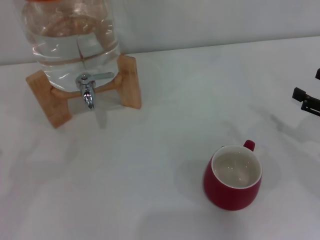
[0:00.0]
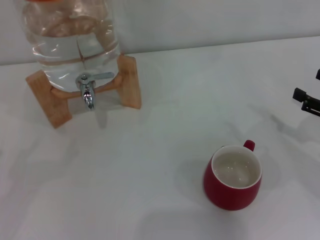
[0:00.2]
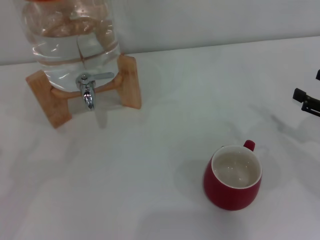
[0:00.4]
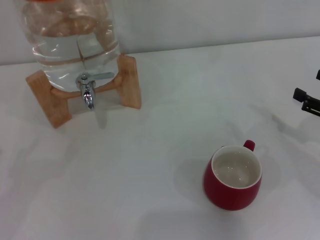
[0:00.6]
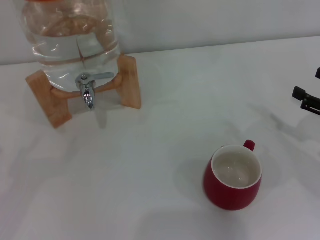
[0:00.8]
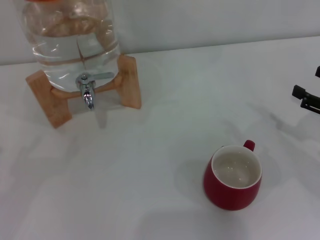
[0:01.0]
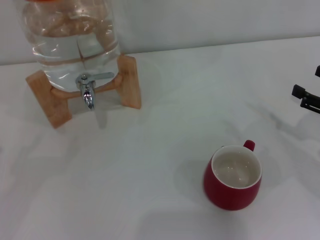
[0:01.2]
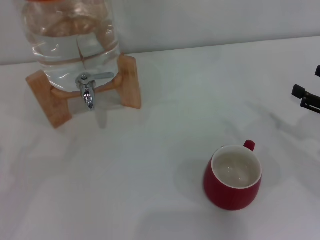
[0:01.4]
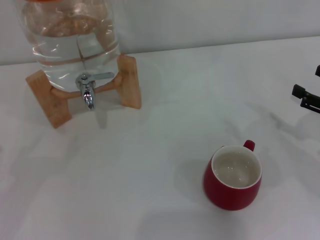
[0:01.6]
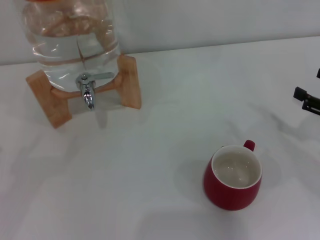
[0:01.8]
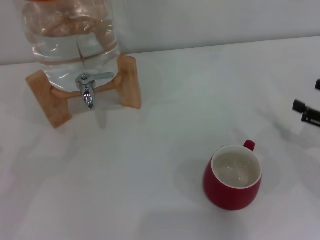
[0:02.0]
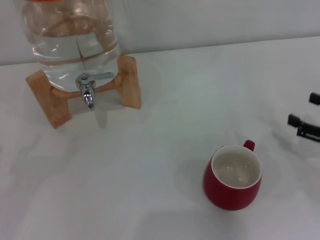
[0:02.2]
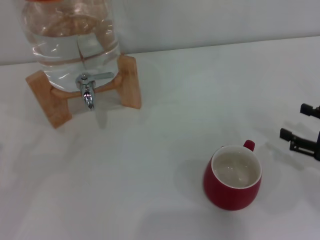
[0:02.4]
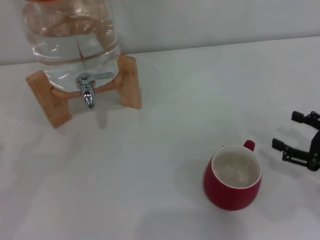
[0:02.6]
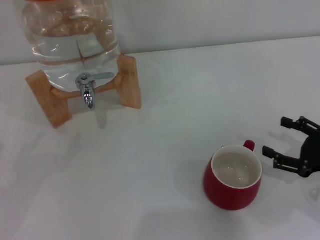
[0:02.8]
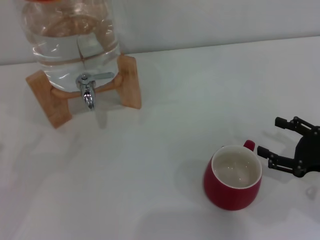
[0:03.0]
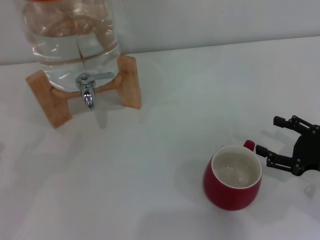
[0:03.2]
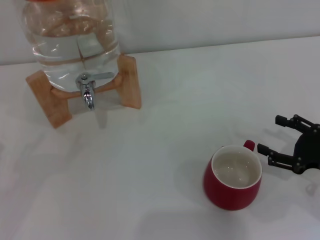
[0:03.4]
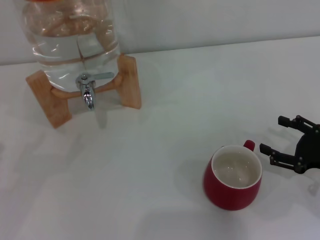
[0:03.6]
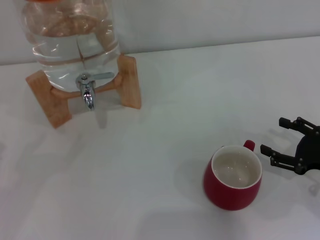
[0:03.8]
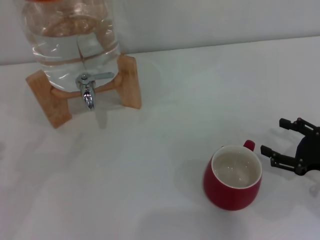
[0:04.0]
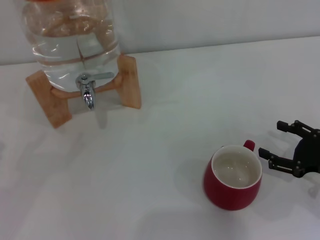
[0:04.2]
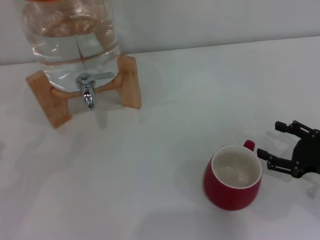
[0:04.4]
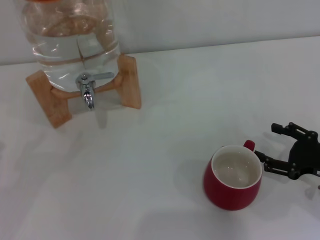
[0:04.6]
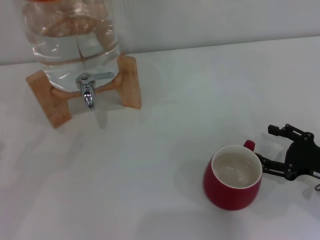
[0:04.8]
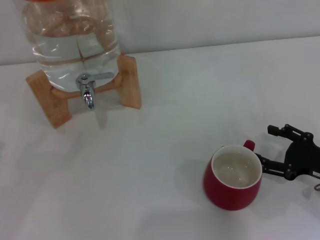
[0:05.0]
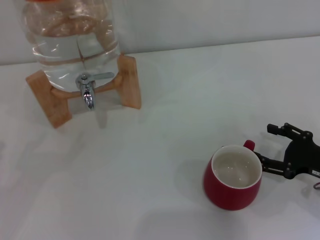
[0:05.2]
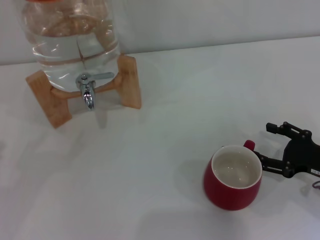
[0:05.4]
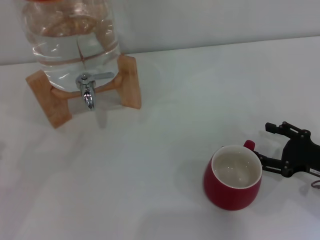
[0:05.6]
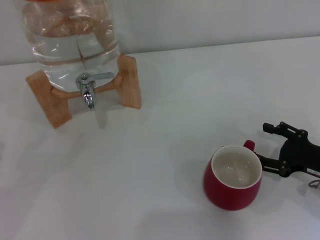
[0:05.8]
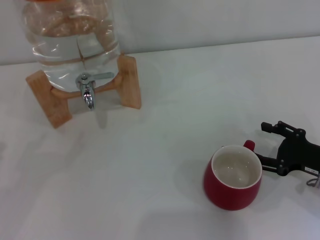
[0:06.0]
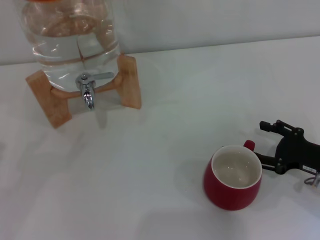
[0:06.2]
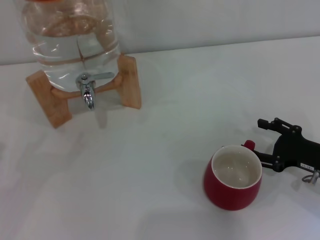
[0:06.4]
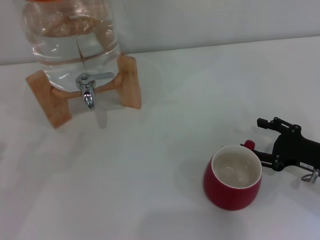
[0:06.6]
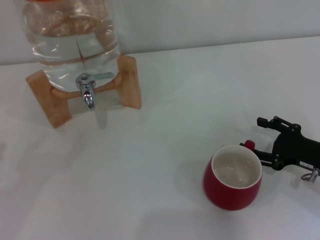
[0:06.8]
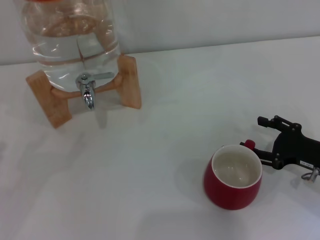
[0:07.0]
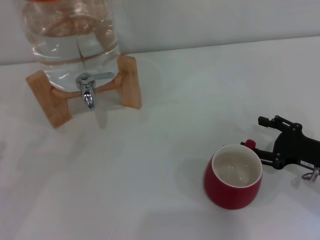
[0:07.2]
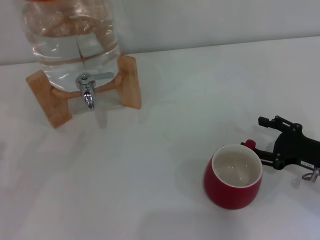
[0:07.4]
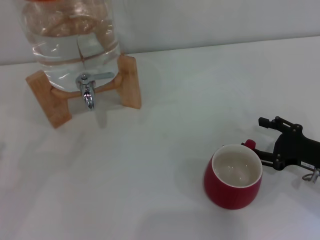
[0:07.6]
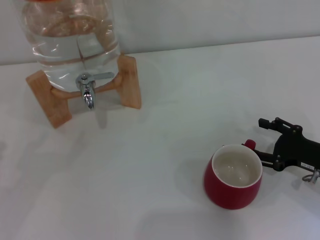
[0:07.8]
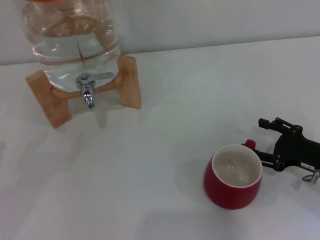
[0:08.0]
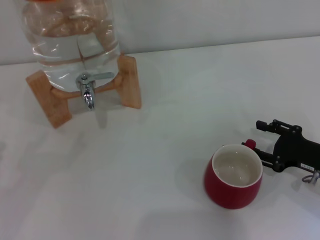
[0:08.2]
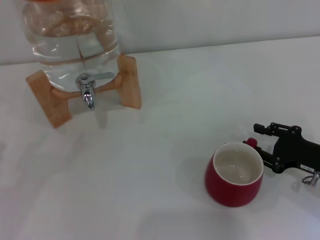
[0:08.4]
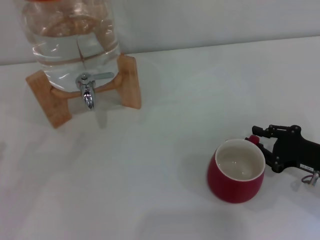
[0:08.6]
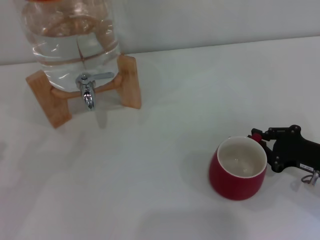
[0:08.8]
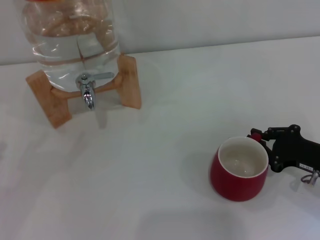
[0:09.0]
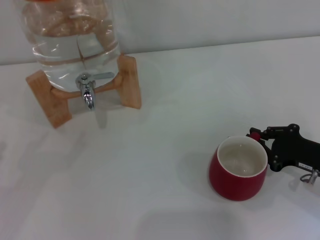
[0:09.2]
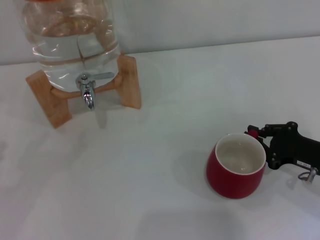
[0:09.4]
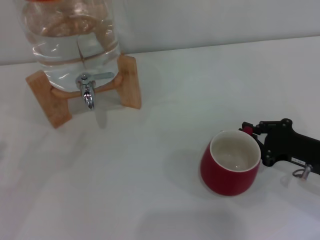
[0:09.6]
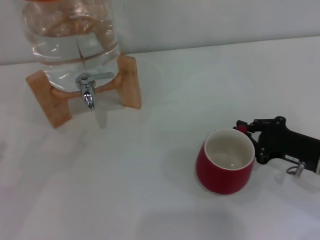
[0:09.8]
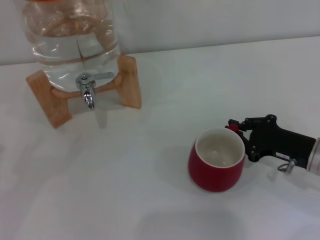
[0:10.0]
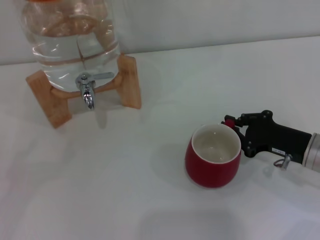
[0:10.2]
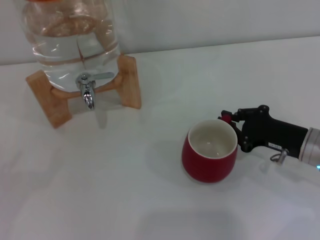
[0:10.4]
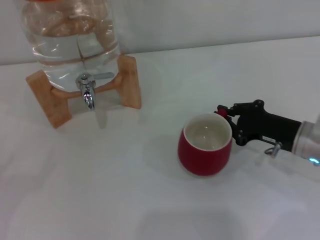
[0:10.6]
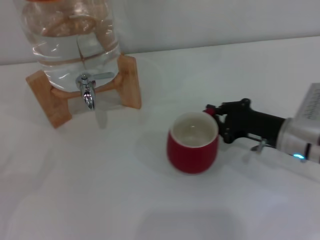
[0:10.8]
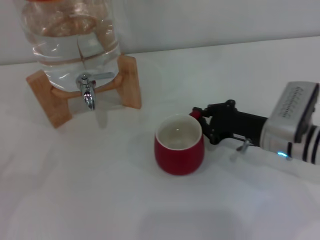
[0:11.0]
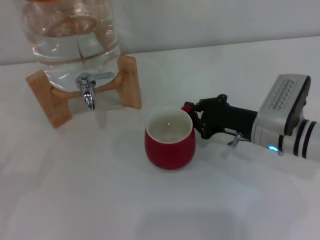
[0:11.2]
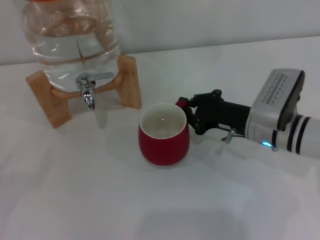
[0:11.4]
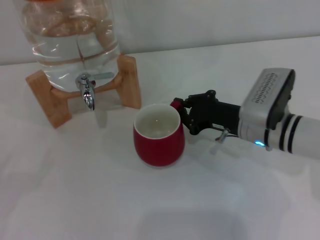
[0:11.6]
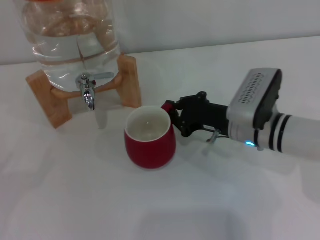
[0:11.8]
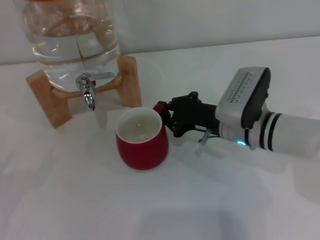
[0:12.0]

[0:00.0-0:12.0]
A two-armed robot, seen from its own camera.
Task of the whole recording: the right gripper pick up the red cup and place it horizontally under the faucet, the left gripper turn on the faucet to fill the cup, and then turn off the faucet.
0:00.0 to 0:01.6: The two grippers keep their place.
0:01.6 to 0:03.0: The right gripper shifts by approximately 5 cm.
0:03.0 to 0:04.4: Neither gripper changes place.
0:04.4 to 0:06.0: The grippers move only a little.
0:06.0 to 0:07.6: The two grippers keep their place.
0:07.6 to 0:09.0: The right gripper closes its fingers.
0:09.0 to 0:10.4: The right gripper ends up about 5 cm from where it was.
0:10.4 to 0:12.0: The right gripper travels to the left and forward by approximately 15 cm.

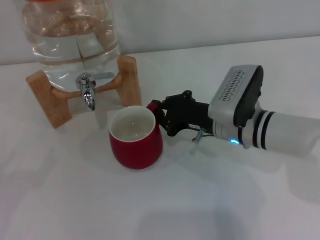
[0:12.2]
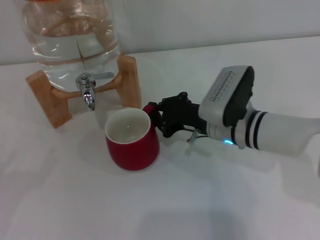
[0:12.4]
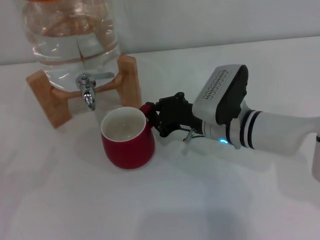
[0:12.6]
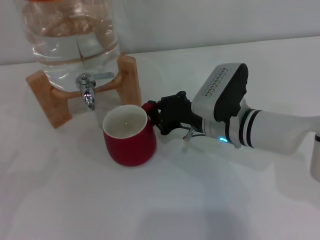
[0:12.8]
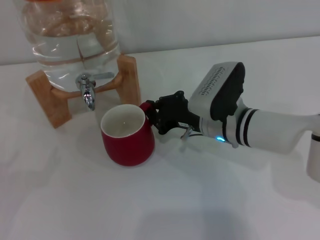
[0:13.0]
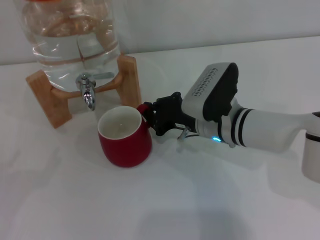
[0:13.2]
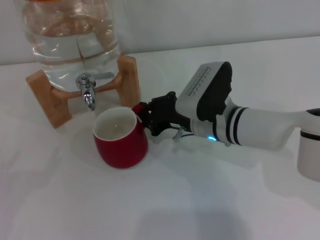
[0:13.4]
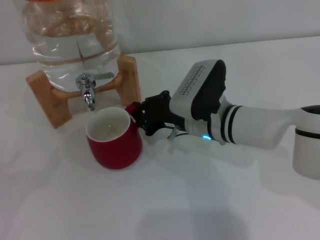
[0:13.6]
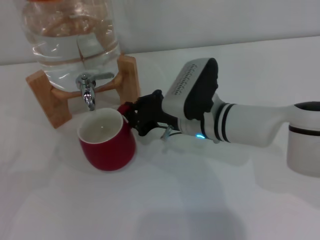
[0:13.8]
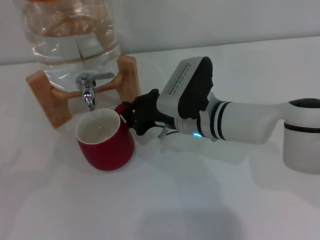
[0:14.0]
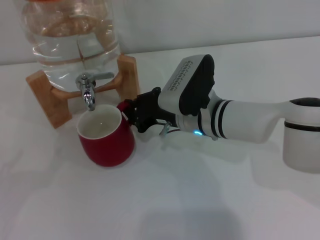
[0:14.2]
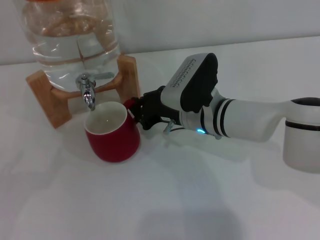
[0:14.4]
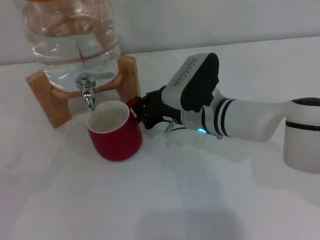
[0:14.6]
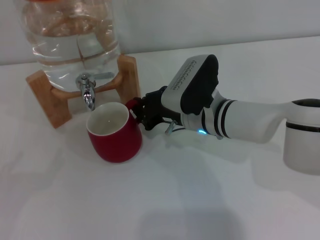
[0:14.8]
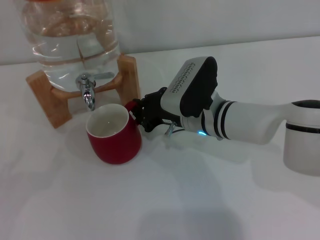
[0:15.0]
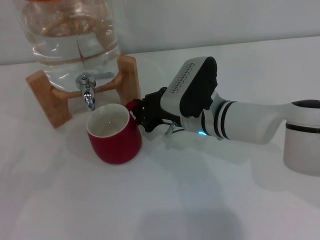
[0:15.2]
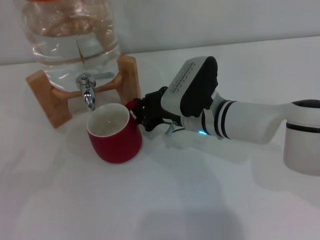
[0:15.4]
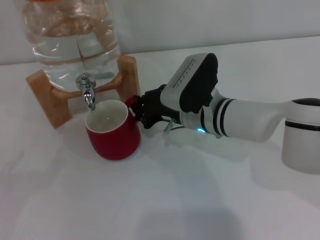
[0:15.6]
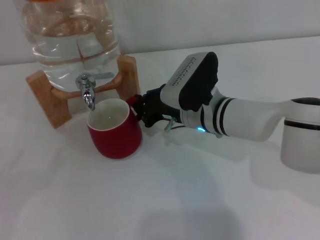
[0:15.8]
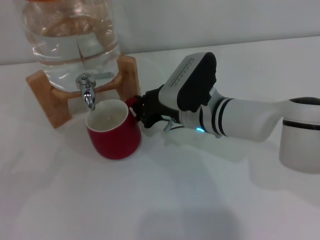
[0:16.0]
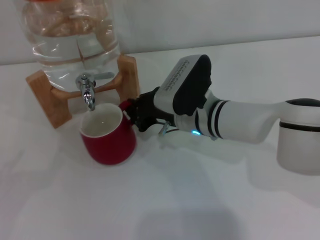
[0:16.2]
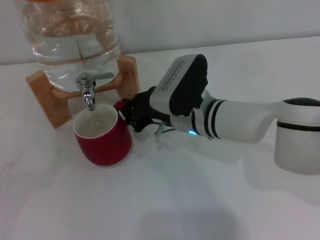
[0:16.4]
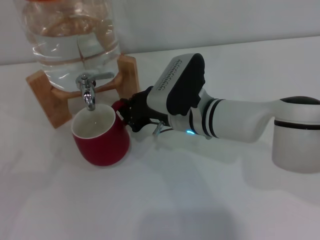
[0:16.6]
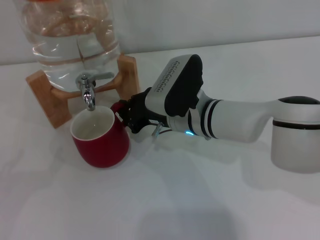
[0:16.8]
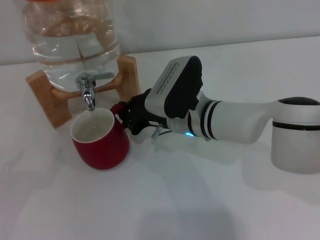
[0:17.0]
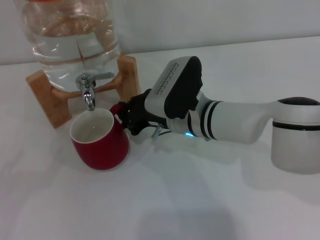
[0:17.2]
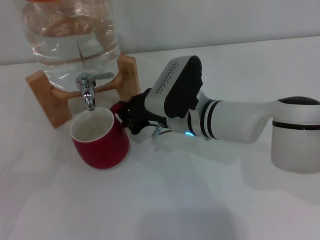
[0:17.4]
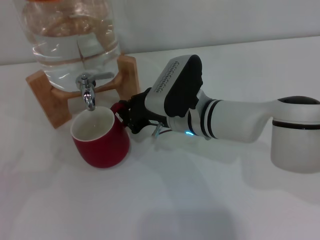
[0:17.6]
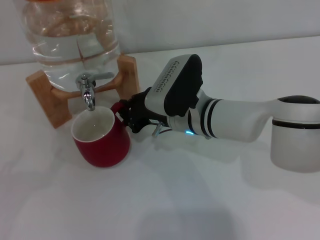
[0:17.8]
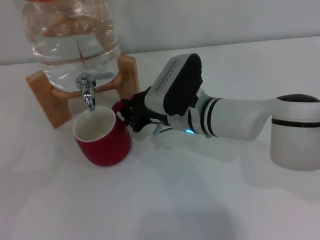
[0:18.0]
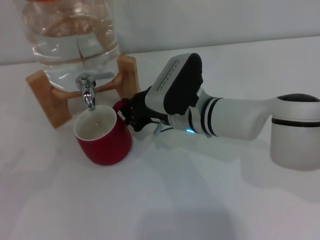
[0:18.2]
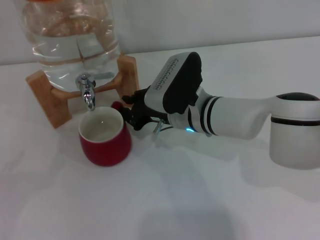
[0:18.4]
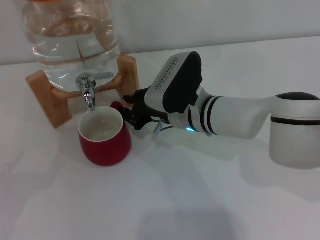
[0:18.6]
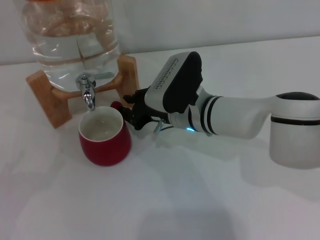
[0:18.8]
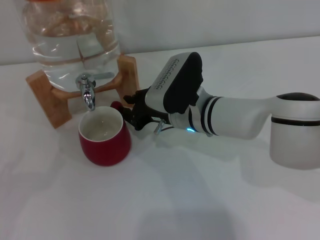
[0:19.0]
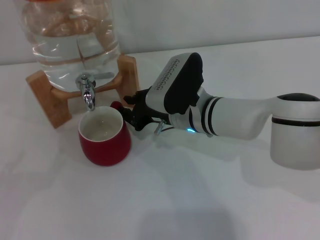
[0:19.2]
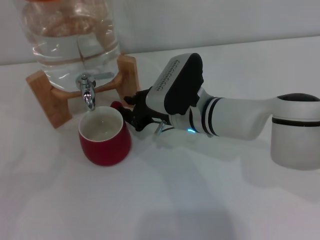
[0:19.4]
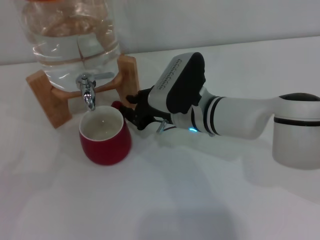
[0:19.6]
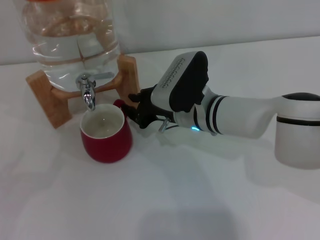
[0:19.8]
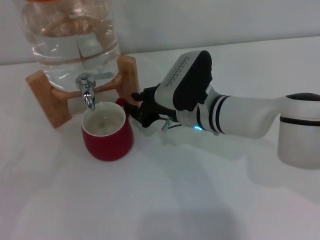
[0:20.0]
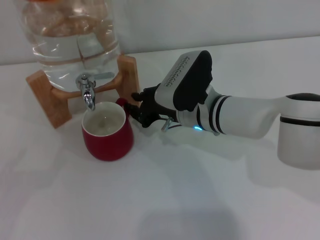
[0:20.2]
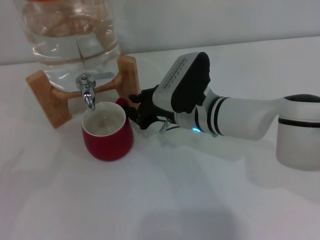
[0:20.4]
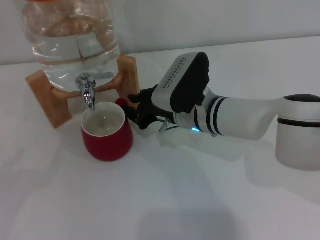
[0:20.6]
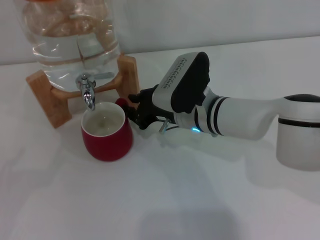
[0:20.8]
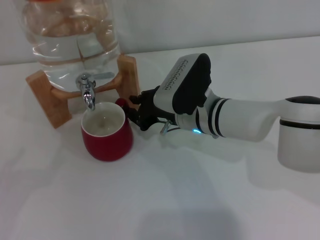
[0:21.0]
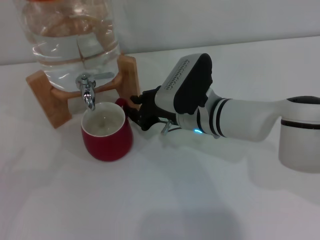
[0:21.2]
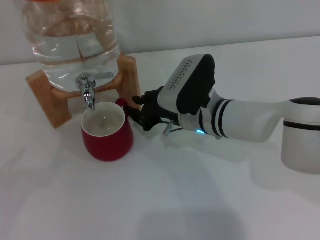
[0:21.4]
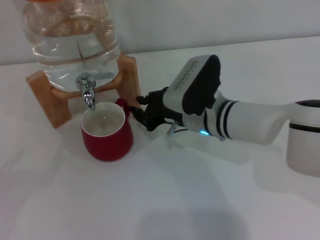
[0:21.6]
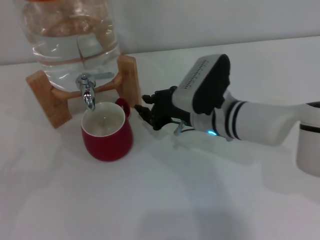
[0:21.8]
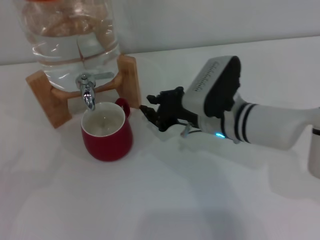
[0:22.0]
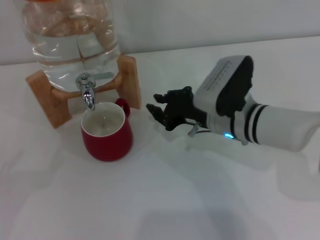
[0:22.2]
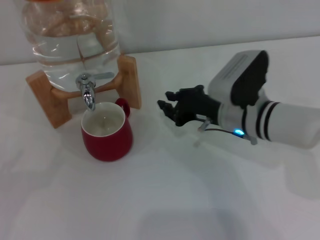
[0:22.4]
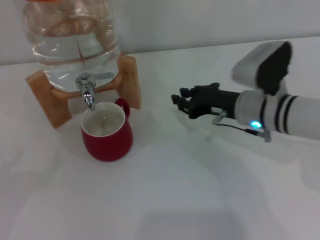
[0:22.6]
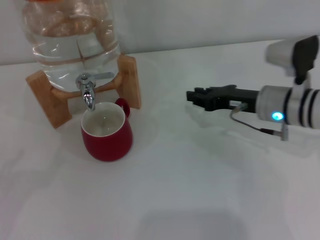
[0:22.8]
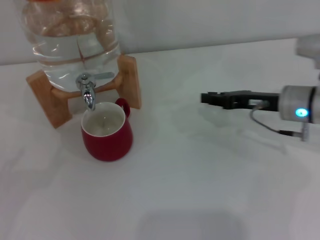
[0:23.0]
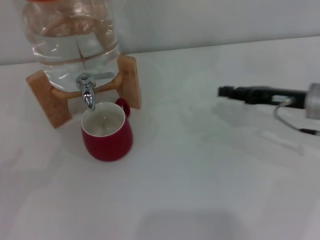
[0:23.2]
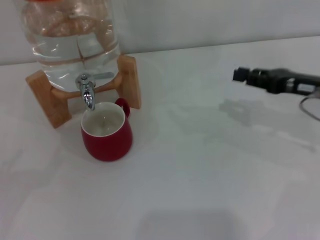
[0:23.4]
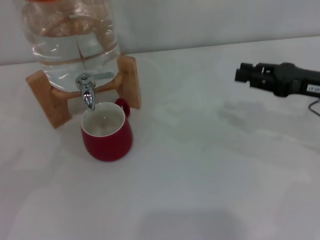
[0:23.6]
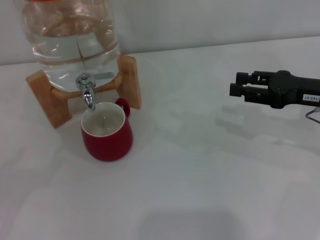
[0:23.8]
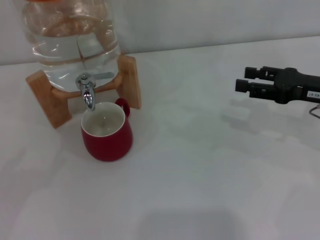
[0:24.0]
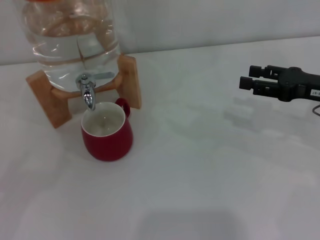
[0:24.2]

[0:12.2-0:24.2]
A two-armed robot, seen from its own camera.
Task of the whole recording: the right gripper pick up the red cup and place it horizontally under the faucet, the left gripper turn on the faucet to fill the cup, and then turn off the faucet.
Step, 0:12.2 to 0:21.8: Move the cup beneath the water dispenser nozzle with the right gripper.
0:12.2 to 0:13.8: The right gripper is displaced to the left by approximately 5 cm.
0:13.8 to 0:16.6: The grippers move only a little.
0:16.6 to 0:19.8: The two grippers keep their place.
0:19.8 to 0:21.2: The two grippers keep their place.
0:21.2 to 0:22.6: The right gripper goes some 10 cm to the right.
0:22.6 to 0:24.2: The right gripper heads to the right, covering about 15 cm, and opens its fingers.
